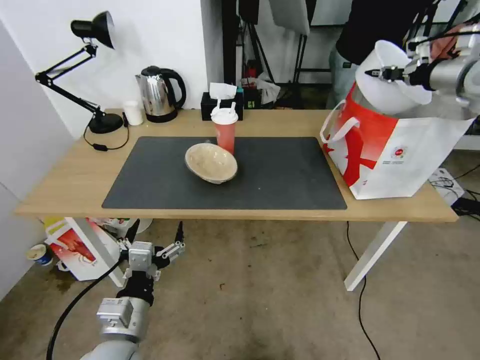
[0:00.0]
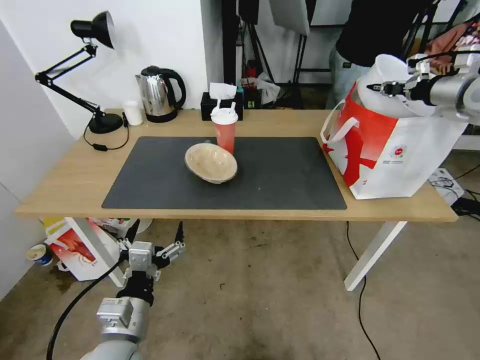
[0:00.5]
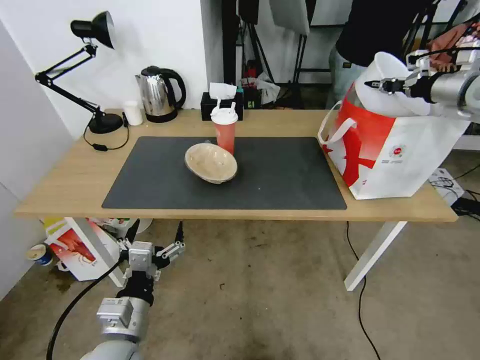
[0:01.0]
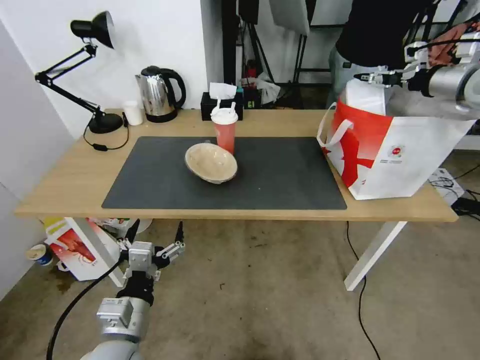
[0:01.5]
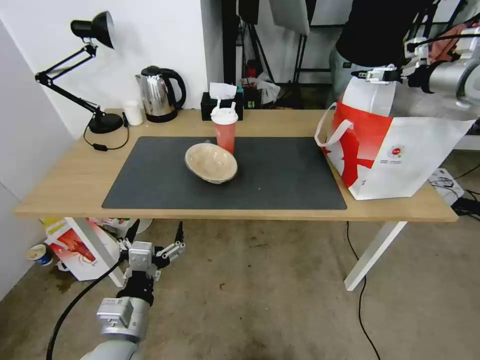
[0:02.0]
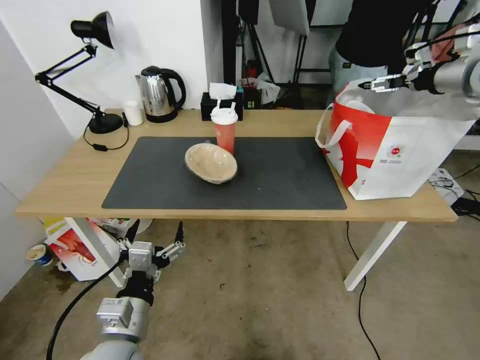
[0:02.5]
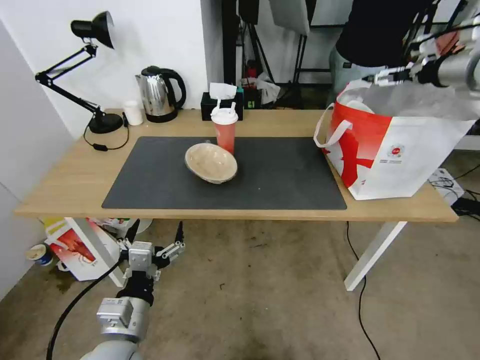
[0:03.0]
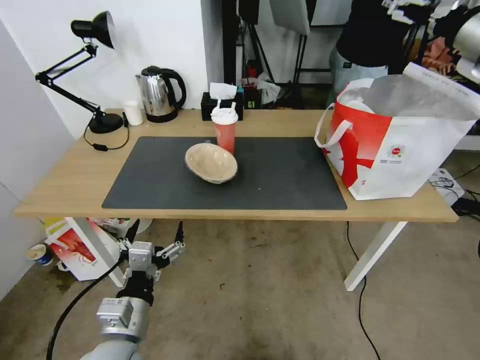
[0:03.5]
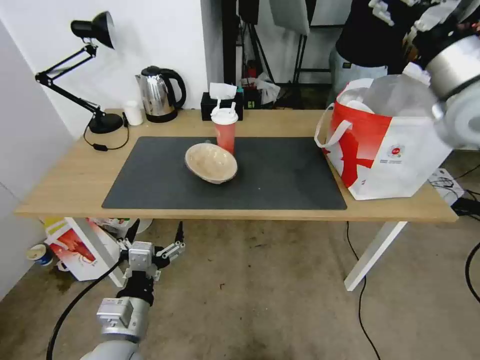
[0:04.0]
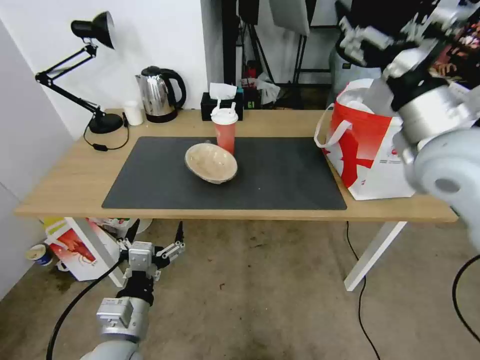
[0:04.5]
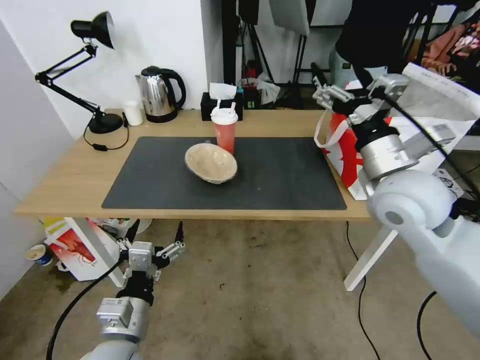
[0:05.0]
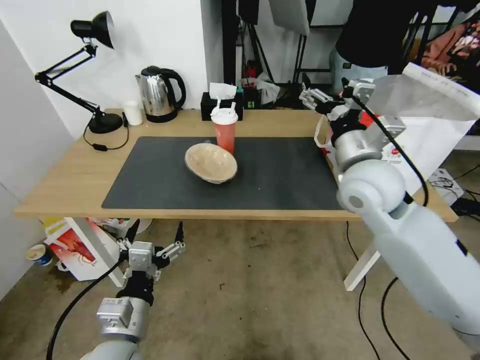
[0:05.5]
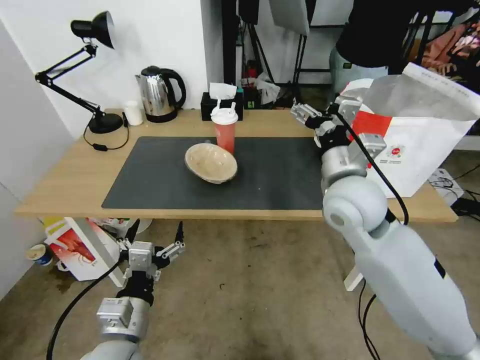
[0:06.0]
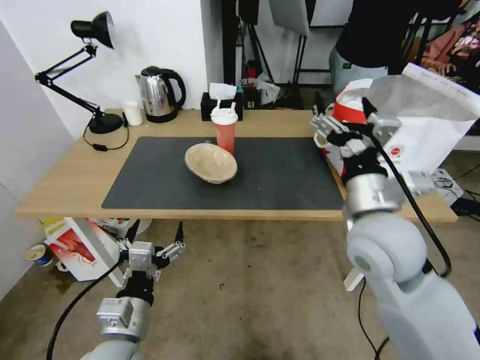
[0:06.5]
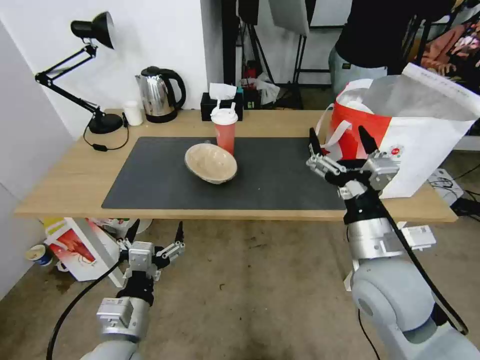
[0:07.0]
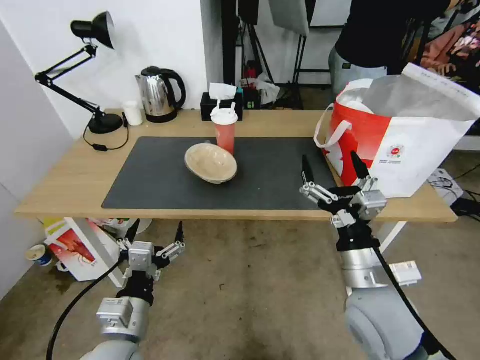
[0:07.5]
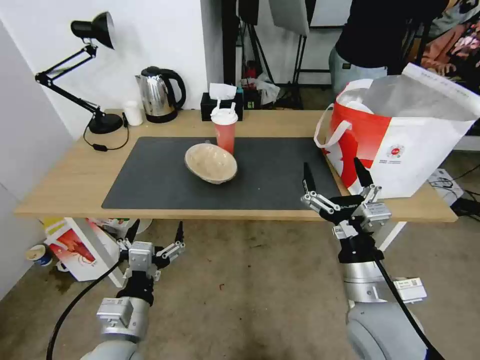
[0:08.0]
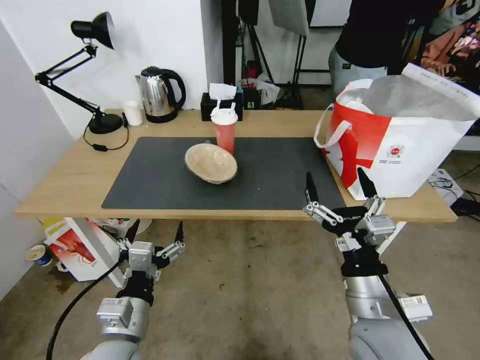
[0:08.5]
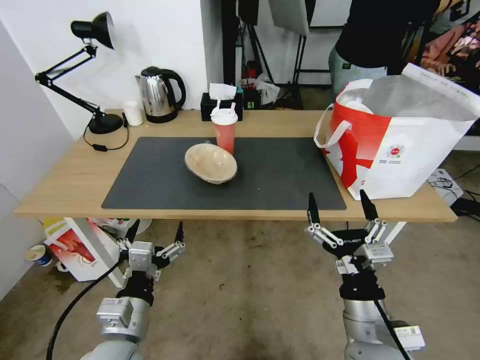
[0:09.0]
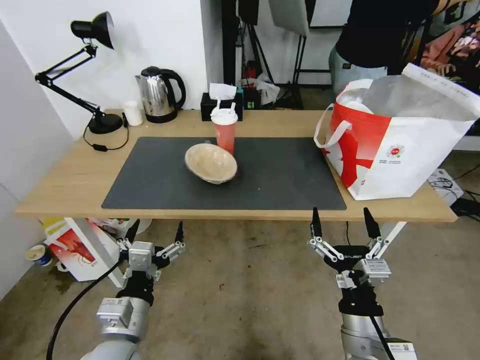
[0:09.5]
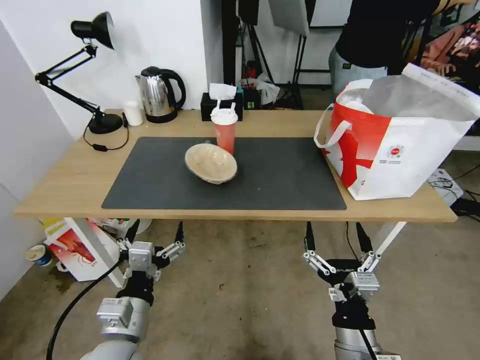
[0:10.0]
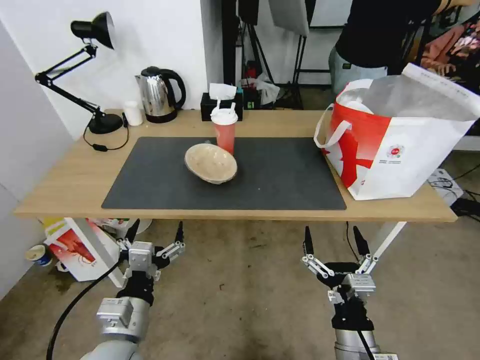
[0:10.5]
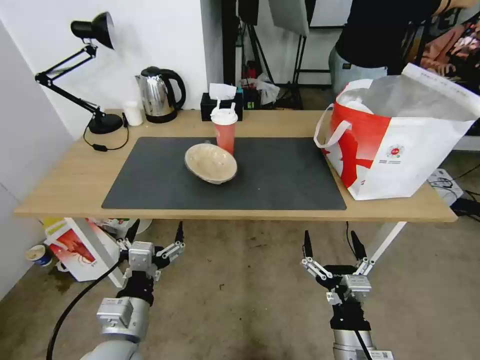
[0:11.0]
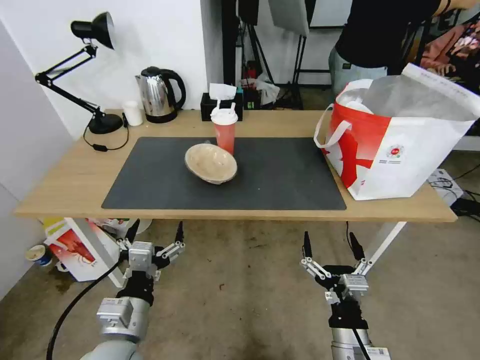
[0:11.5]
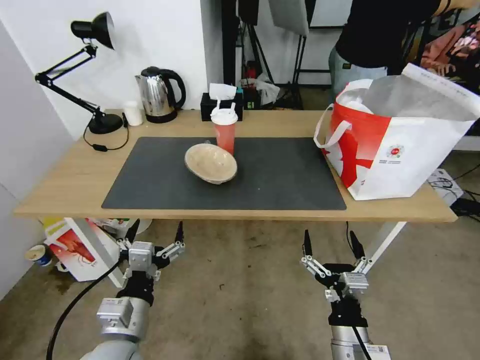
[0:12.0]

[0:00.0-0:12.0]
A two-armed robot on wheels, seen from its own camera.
Task of the whole recording: Pick up the trash from the table and place it into the takeout bag.
0.0 to 2.0 s: The right gripper opens.
2.0 to 4.0 s: The right gripper heads to the left and backward, covering roughly 20 cm.
4.0 to 6.0 s: The right gripper is displaced downward and to the left by some 20 cm.
6.0 to 8.0 s: The right gripper moves backward and downward, roughly 20 cm.
8.0 to 10.0 s: The right gripper goes roughly 10 cm downward and backward.
10.0 to 12.0 s: The grippers make only small movements.

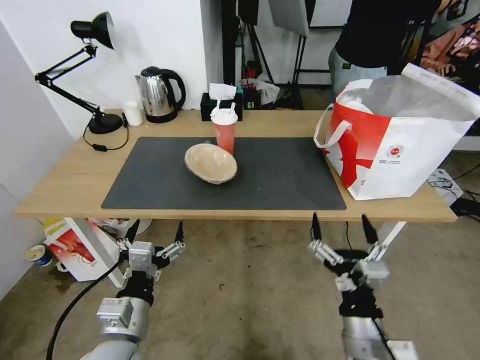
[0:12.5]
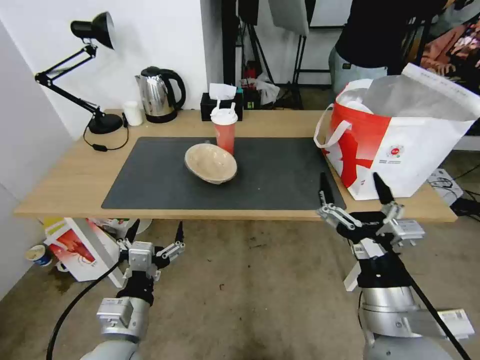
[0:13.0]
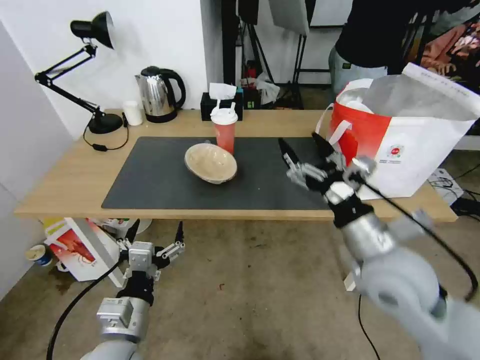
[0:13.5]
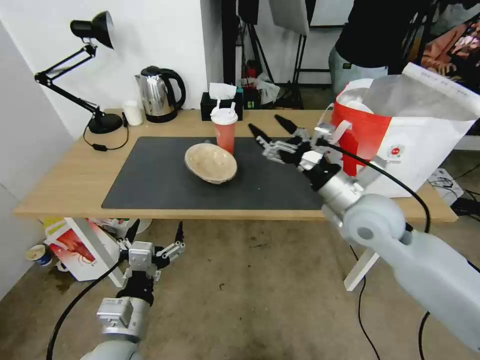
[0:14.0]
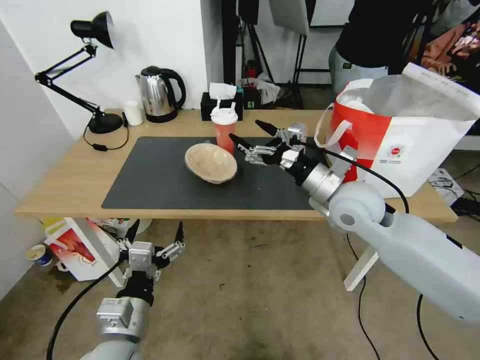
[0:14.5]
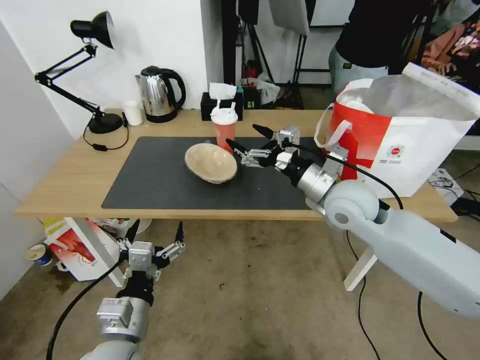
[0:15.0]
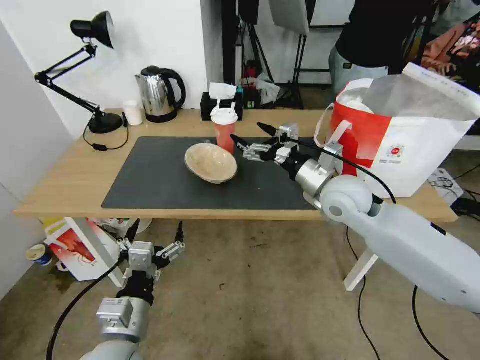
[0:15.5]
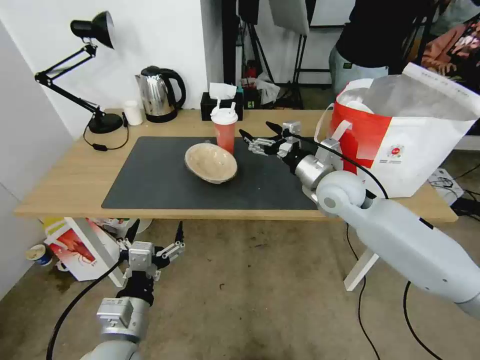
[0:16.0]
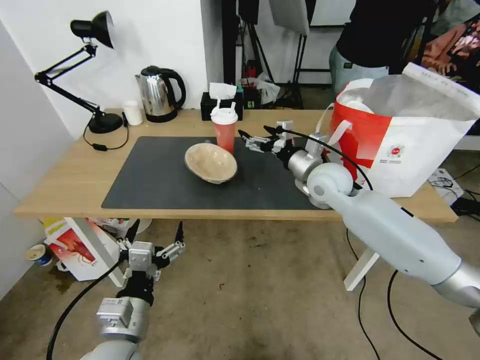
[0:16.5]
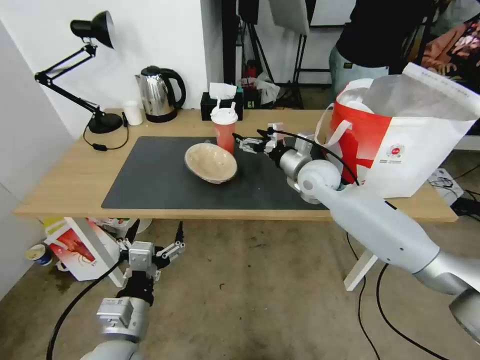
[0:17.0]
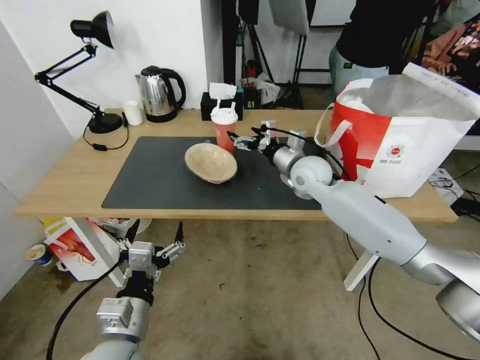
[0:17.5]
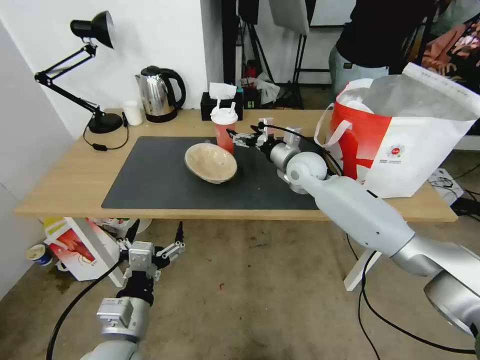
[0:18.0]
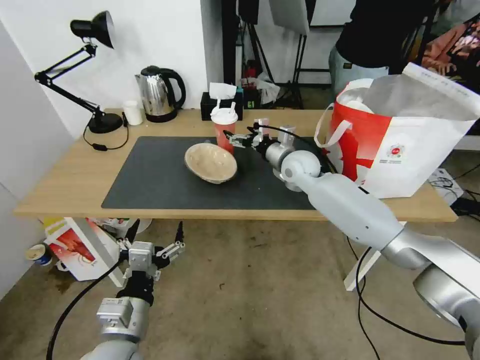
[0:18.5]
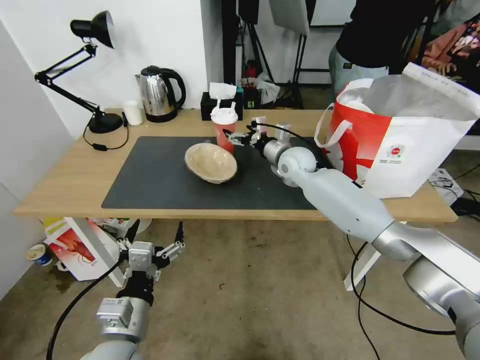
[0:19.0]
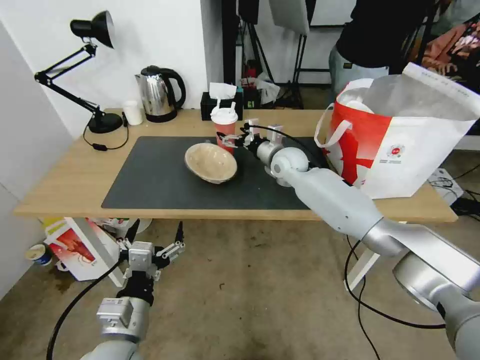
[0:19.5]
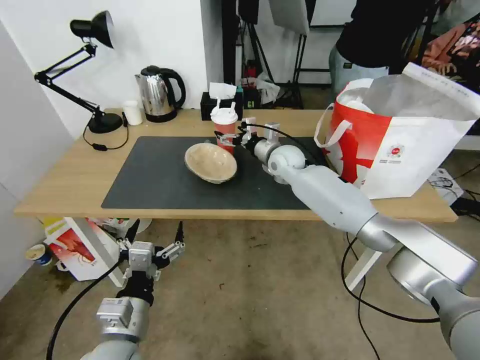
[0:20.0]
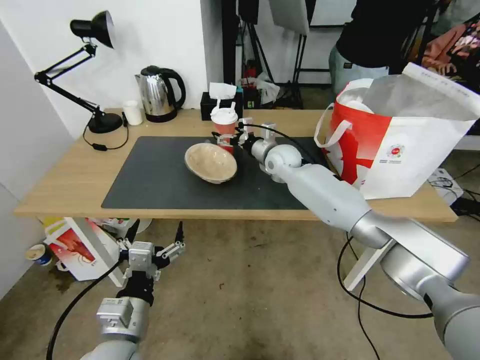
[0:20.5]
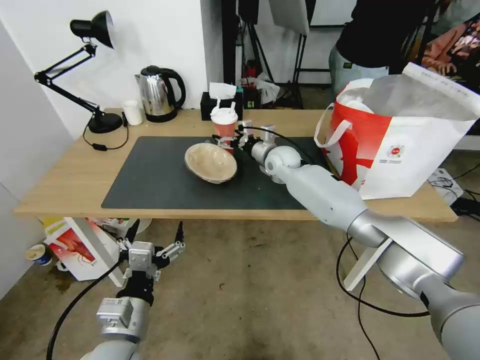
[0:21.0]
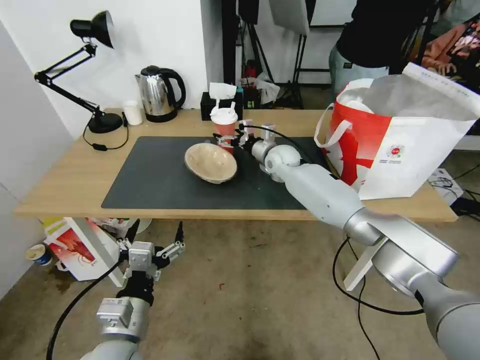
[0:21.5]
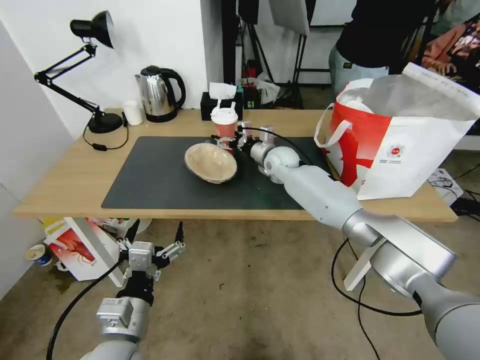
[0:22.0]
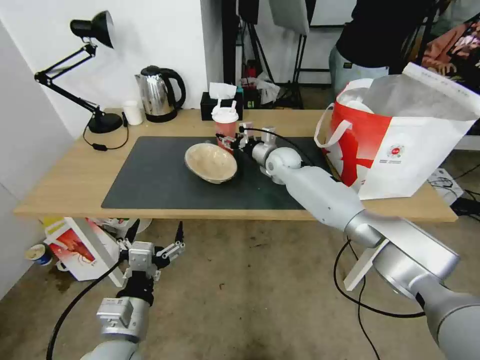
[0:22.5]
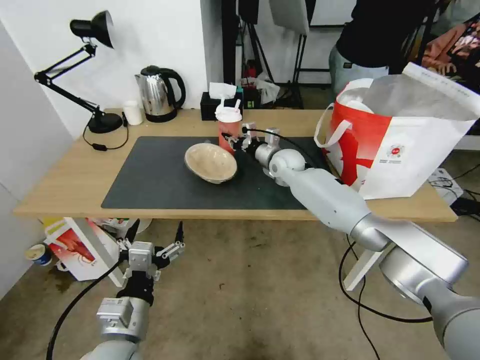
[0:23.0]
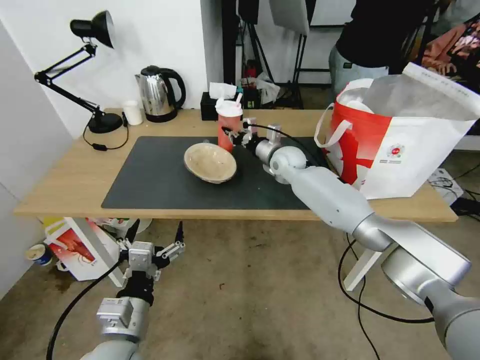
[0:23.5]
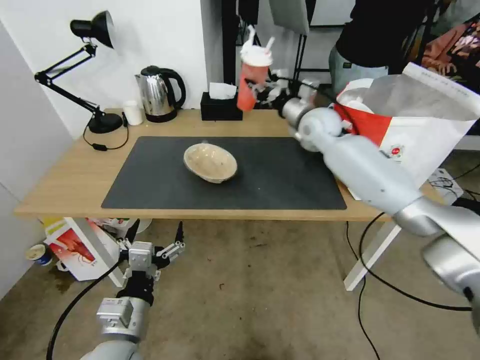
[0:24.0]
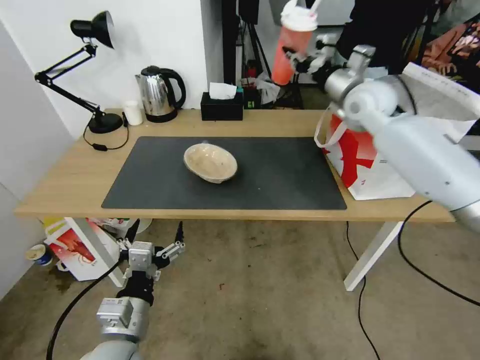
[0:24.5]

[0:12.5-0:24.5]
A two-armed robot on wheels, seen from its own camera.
Task of the whole recording: Pick up the trash from the table and place it into the takeout bag.
12.5 to 14.5 s: The right gripper heads forward and upward, covering some 30 cm.
14.5 to 16.5 s: The right gripper goes some 10 cm forward.
16.5 to 18.5 s: The right gripper moves forward, approximately 5 cm.
18.5 to 20.5 s: The right gripper ends up some 5 cm from where it was.
20.5 to 22.5 s: The right gripper closes.
22.5 to 24.5 s: The right gripper travels upward and to the right by approximately 25 cm, and closes.

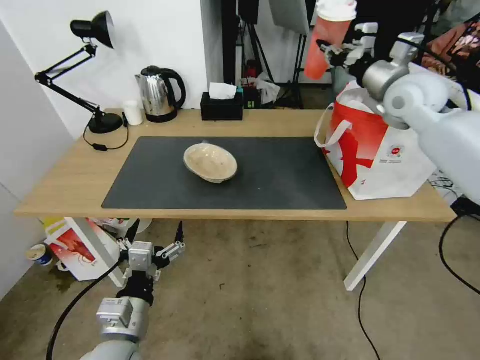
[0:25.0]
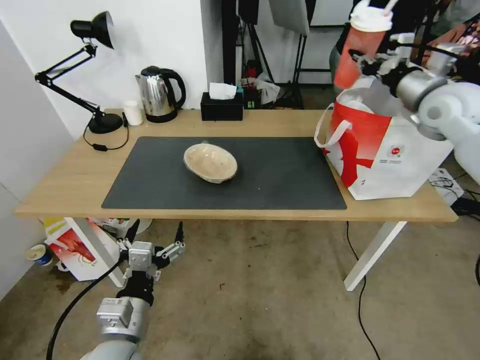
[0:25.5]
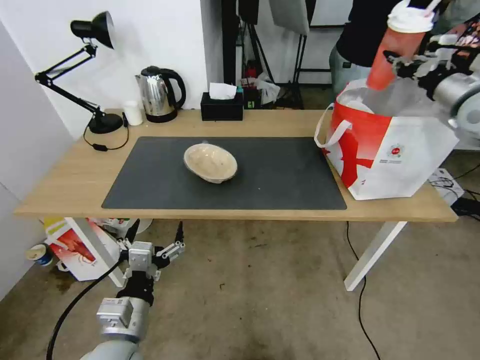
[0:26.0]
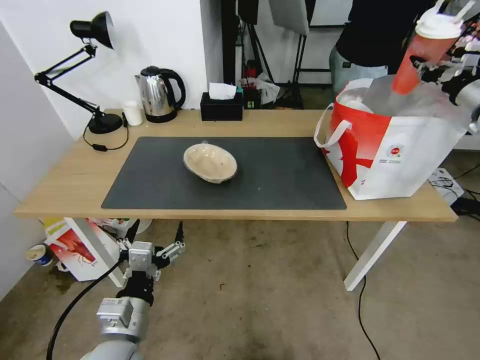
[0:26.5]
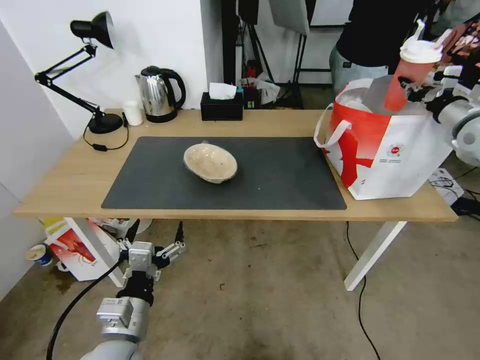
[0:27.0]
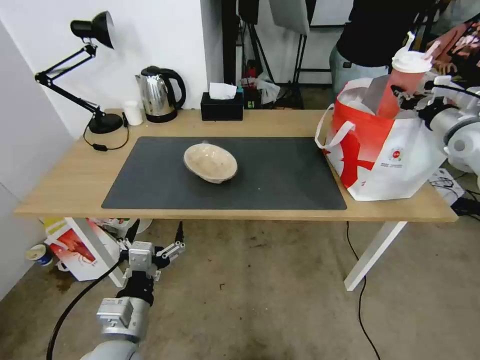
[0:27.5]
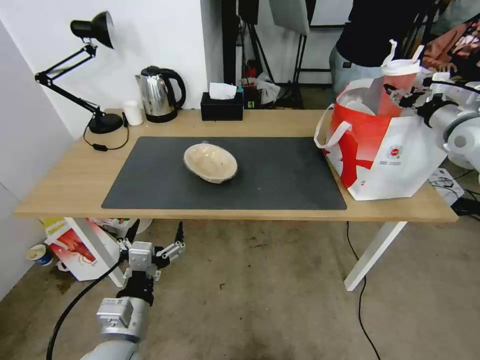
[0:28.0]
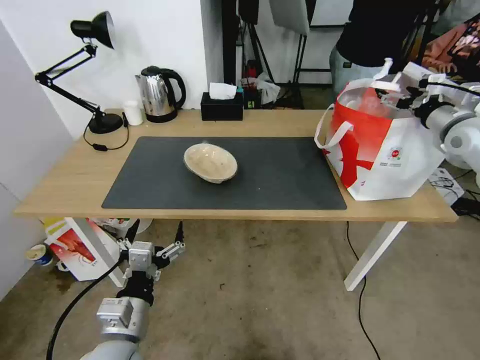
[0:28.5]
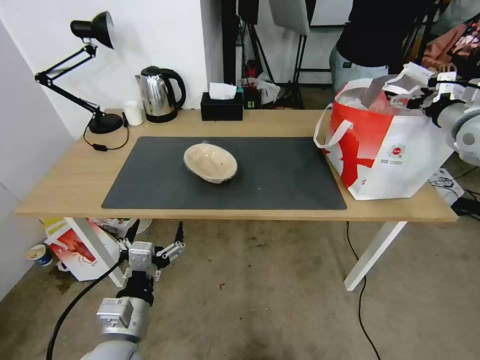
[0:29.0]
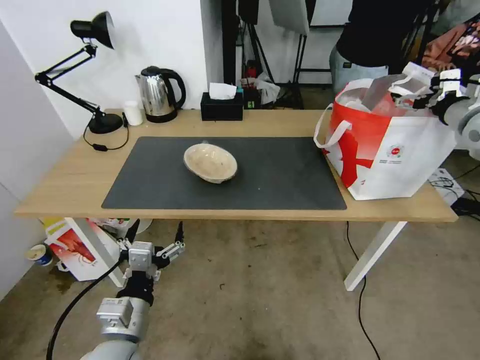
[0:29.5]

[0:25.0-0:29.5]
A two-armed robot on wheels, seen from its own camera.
Task of the whole recording: Pick up the trash from the table and place it into the takeout bag.
25.0 to 27.0 s: The right gripper is displaced to the right by approximately 15 cm.
27.0 to 29.5 s: The right gripper opens its fingers.
